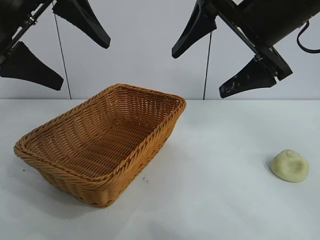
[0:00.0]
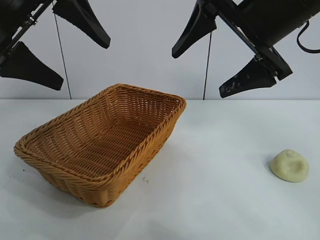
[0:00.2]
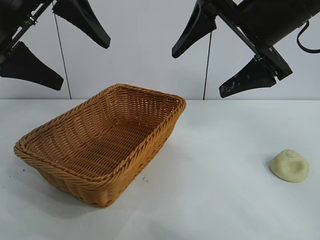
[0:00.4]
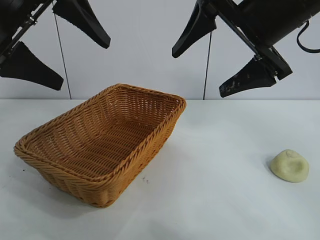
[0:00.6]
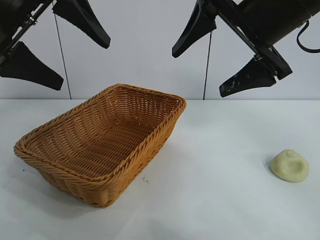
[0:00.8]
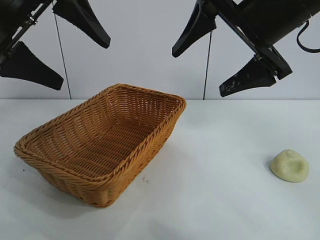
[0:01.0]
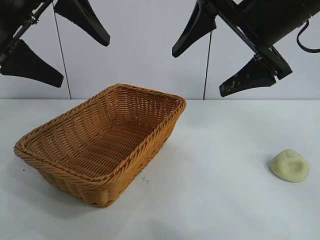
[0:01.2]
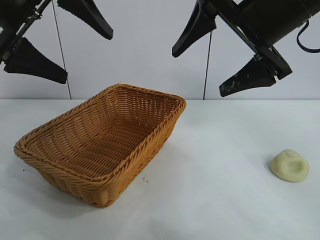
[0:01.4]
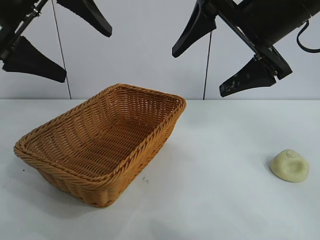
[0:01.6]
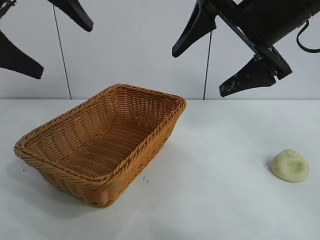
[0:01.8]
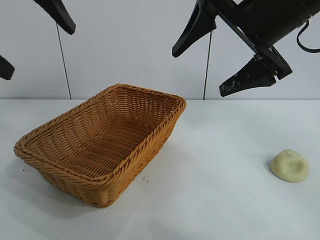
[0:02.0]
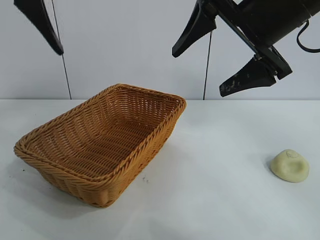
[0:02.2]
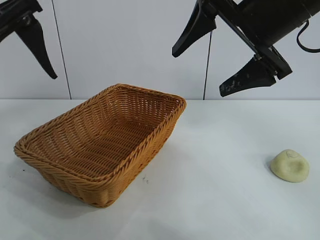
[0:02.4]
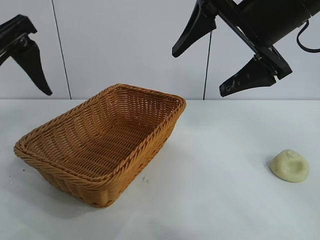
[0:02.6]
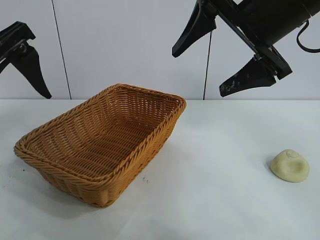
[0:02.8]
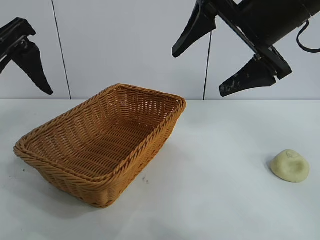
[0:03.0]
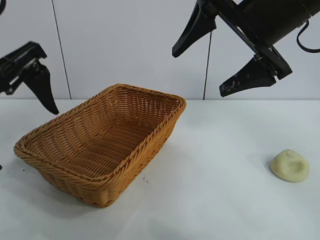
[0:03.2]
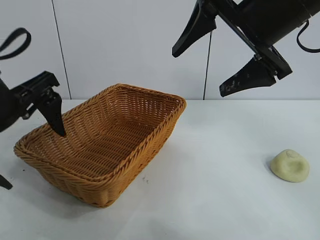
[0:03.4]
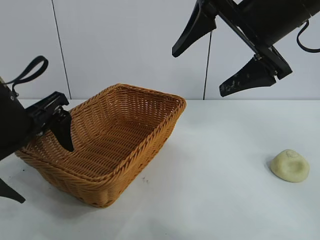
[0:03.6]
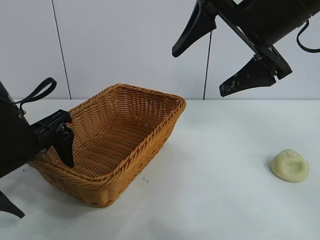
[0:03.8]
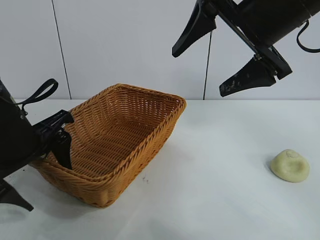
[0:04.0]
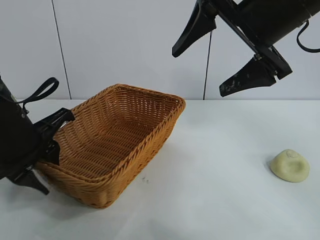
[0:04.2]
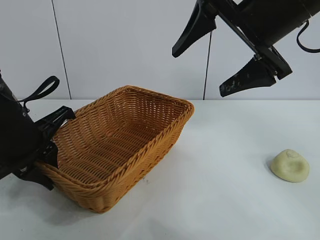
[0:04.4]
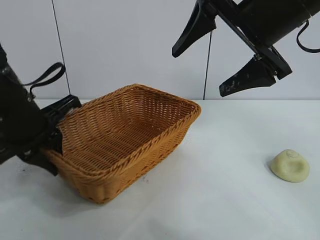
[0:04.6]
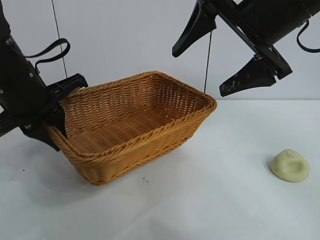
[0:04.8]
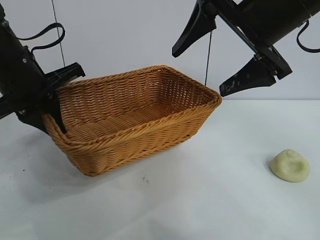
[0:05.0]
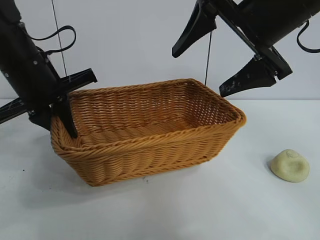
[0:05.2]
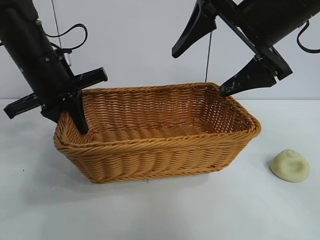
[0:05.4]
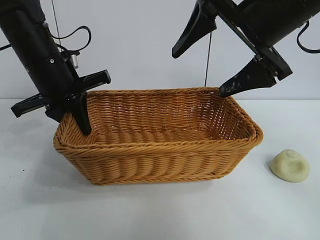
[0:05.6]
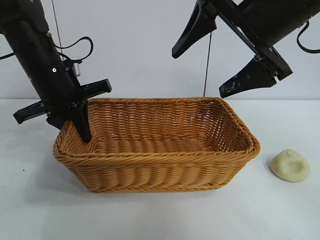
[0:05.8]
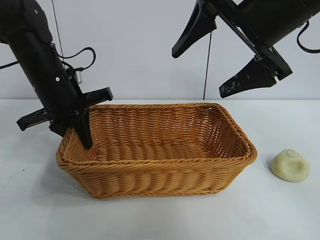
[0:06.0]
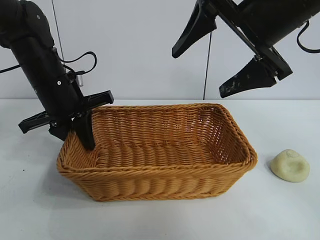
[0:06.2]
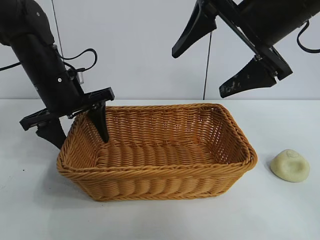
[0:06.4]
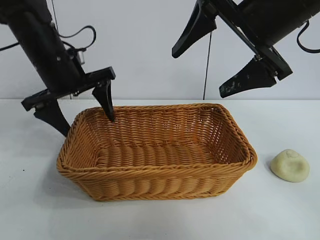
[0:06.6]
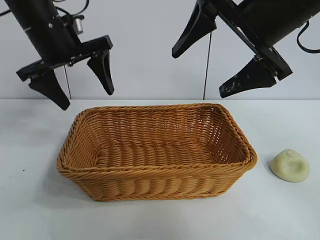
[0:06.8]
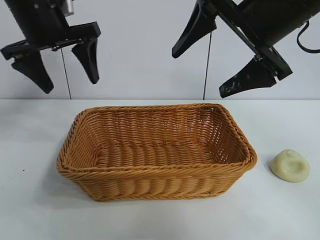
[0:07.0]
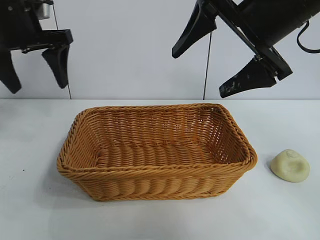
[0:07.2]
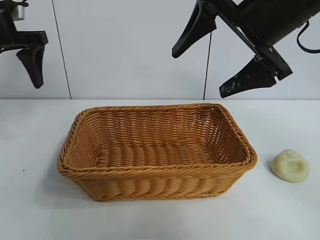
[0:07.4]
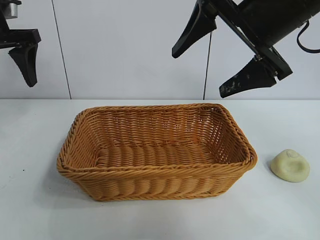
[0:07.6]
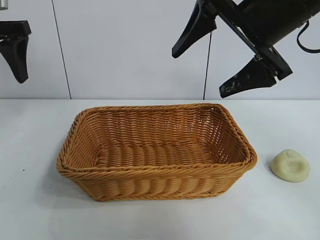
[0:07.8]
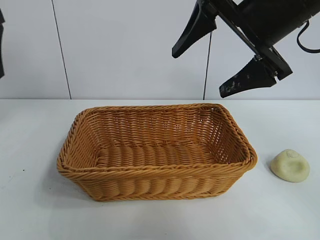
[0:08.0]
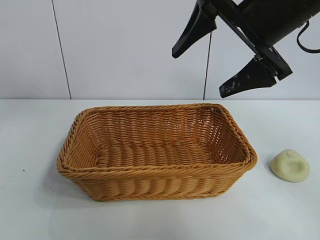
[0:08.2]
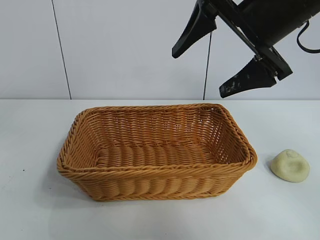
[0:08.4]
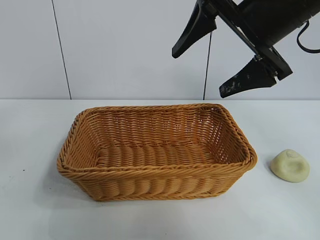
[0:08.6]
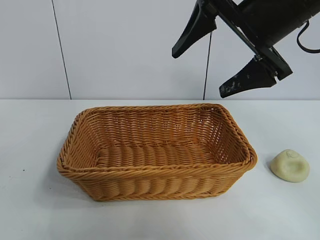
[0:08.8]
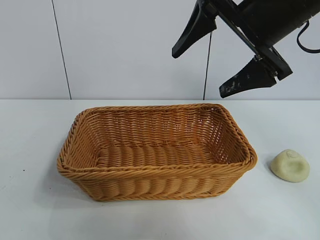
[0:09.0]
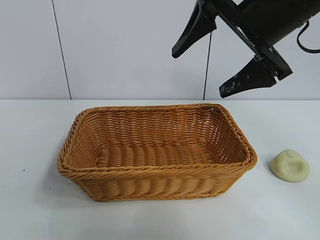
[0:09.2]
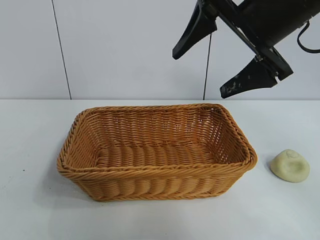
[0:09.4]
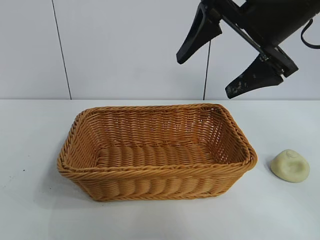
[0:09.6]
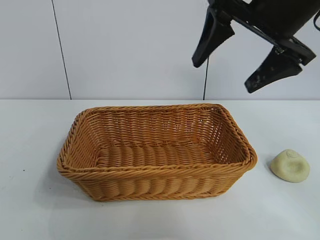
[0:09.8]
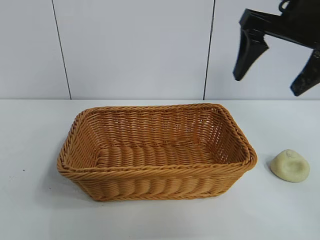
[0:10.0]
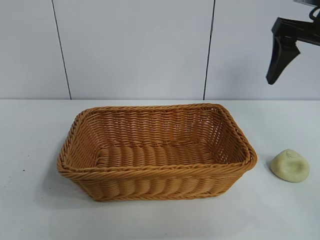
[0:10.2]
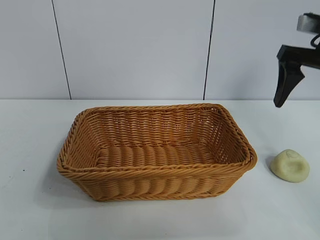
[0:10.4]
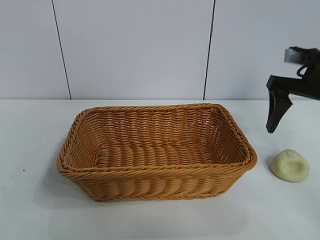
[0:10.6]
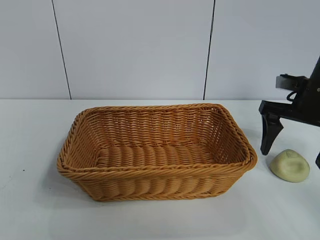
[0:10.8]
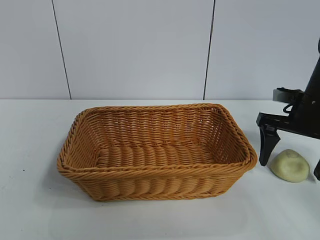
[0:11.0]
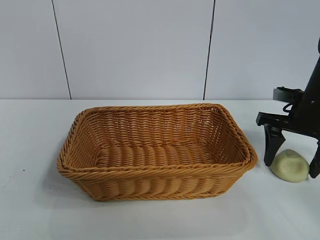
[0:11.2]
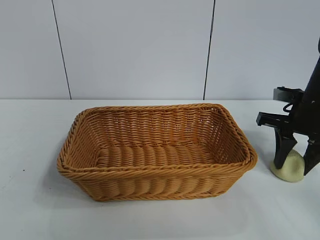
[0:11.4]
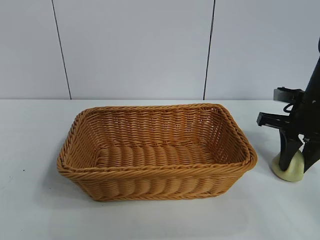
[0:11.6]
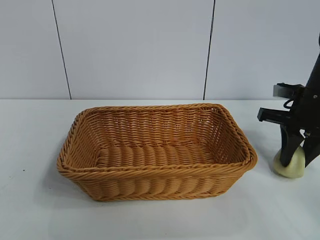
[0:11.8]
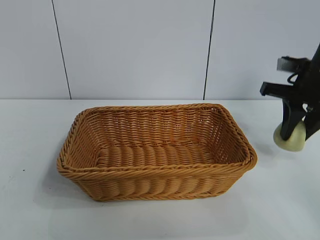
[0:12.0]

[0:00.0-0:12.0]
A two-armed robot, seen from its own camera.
Task of the whole recording: pick up the egg yolk pastry and put it into the basket.
Step, 0:01.0 to 0:04.2: Grasp the basket with left gripper.
Step, 0:04.4 to 0:06.2: Place the basket in the center of view with left gripper.
Step, 0:06.4 to 0:11.4: Grasp egg yolk pastry with right gripper.

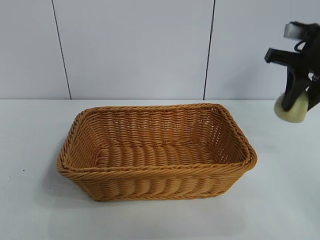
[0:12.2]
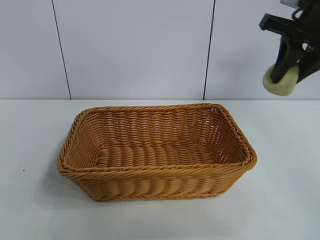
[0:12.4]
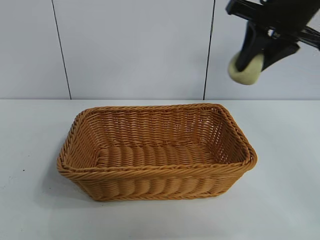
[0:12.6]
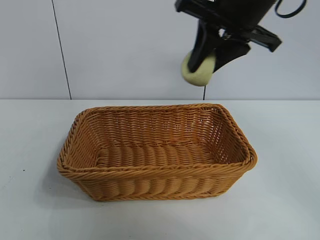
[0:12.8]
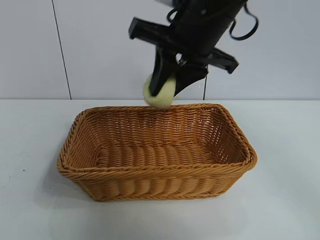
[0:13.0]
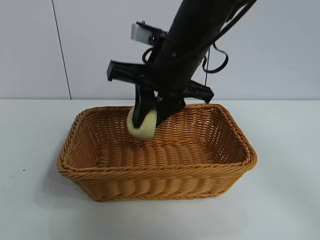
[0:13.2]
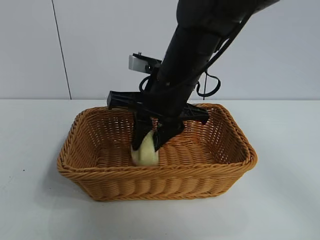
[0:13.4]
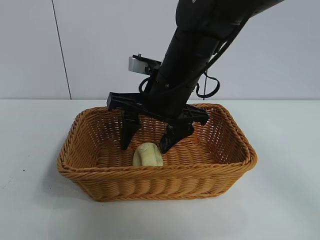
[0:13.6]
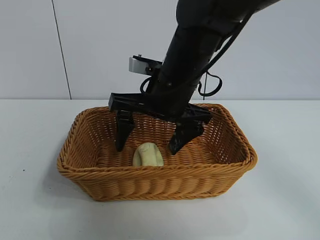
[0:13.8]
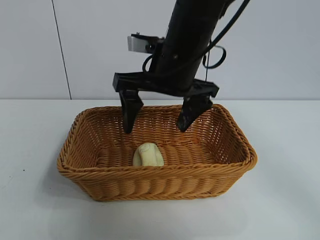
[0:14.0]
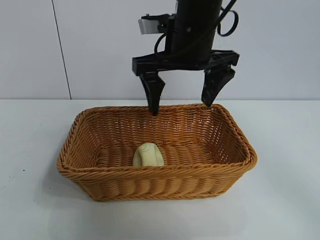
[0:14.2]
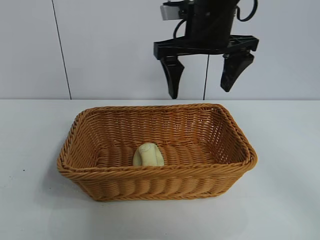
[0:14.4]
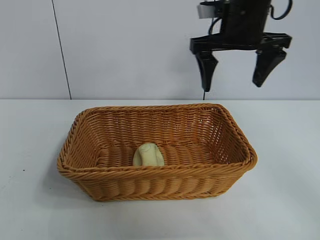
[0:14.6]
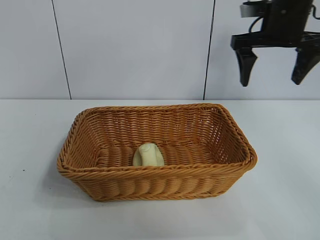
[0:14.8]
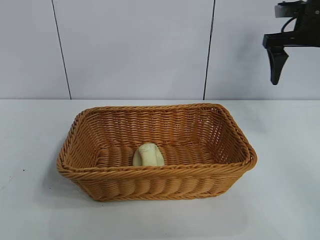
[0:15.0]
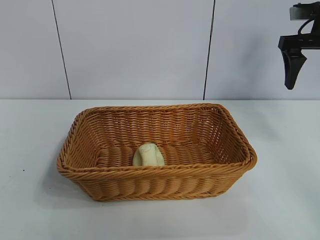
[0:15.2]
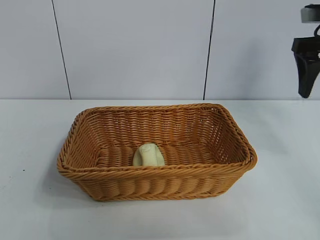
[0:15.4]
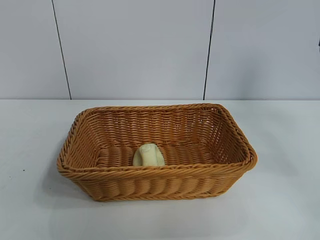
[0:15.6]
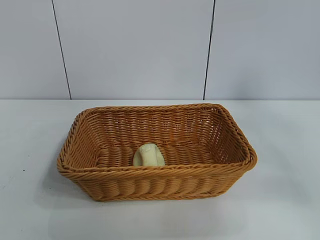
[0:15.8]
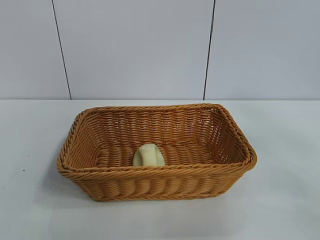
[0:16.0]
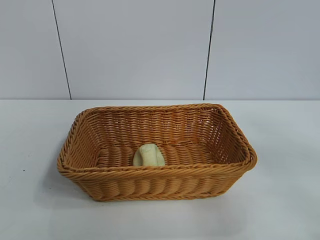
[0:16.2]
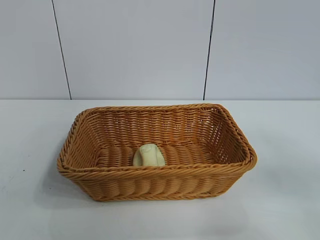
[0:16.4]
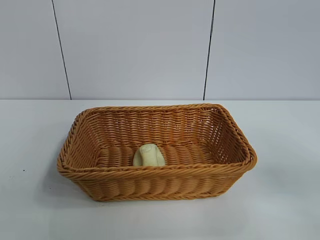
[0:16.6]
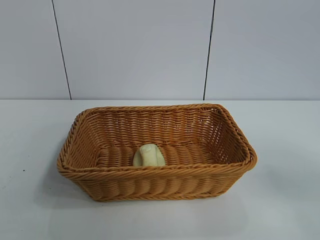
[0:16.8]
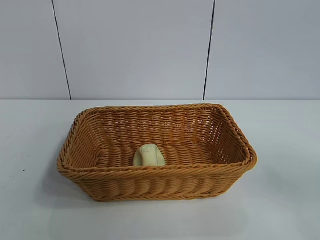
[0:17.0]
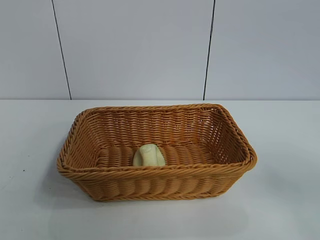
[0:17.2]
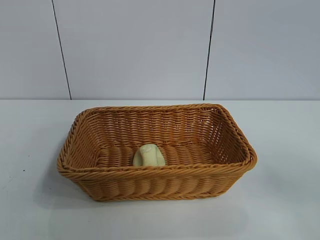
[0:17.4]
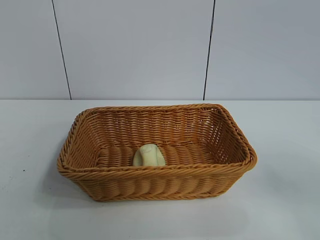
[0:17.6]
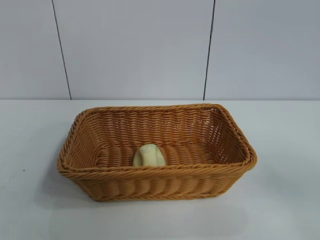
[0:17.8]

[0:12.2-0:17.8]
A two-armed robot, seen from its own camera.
Task of the whole recording: pick up the egg yolk pastry and put it into the basket.
Step, 0:12.2 to 0:13.4: Place the egg yolk pastry in the basket with right gripper.

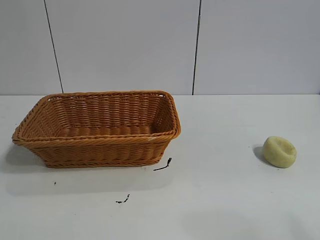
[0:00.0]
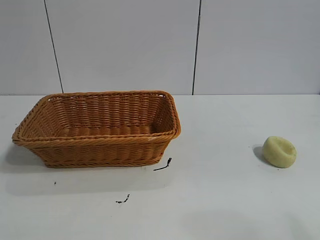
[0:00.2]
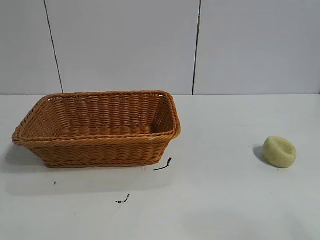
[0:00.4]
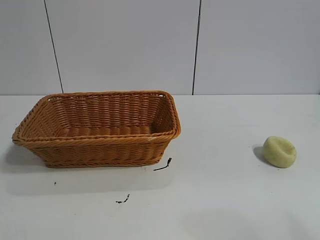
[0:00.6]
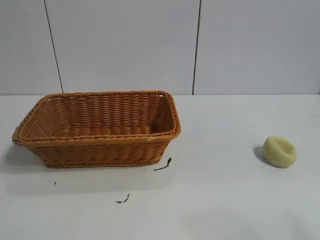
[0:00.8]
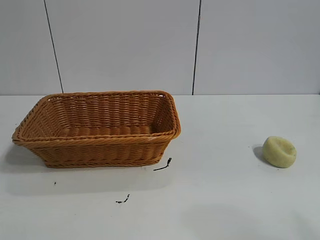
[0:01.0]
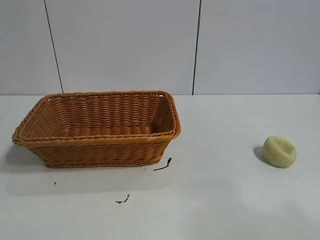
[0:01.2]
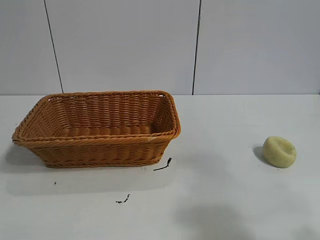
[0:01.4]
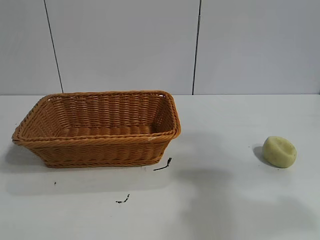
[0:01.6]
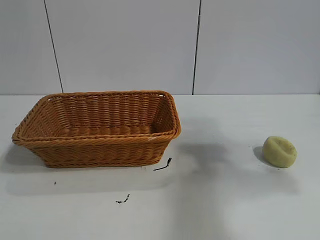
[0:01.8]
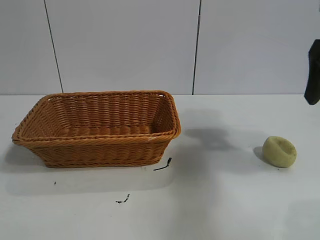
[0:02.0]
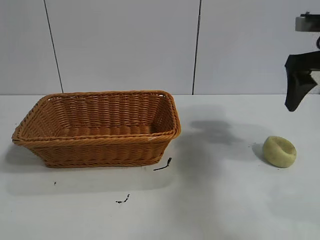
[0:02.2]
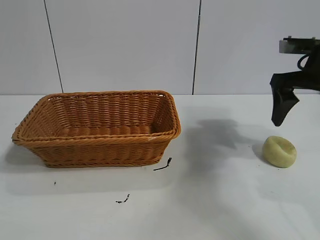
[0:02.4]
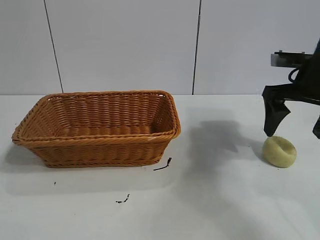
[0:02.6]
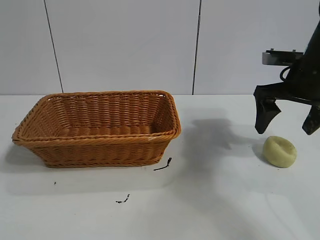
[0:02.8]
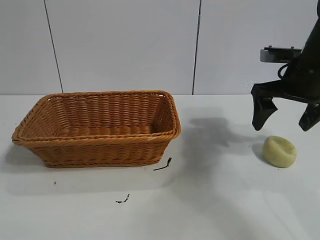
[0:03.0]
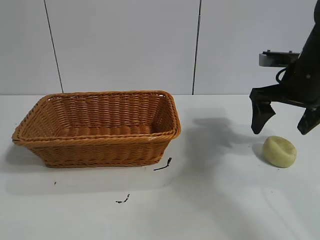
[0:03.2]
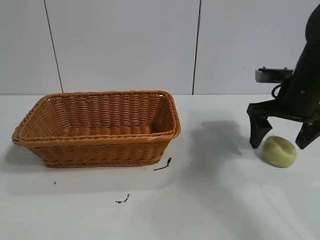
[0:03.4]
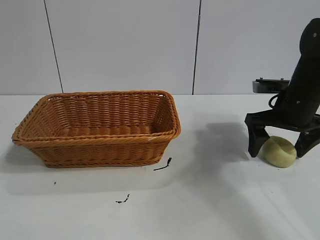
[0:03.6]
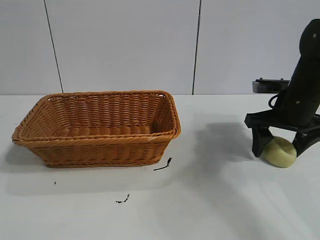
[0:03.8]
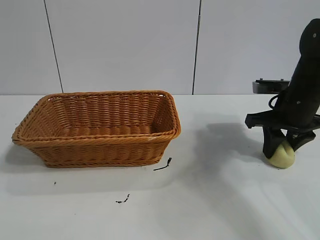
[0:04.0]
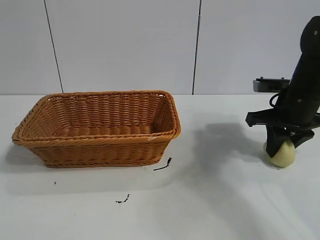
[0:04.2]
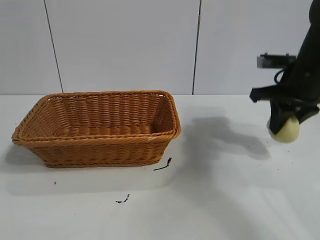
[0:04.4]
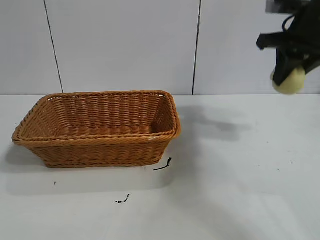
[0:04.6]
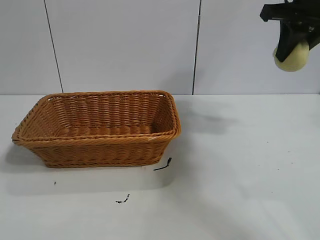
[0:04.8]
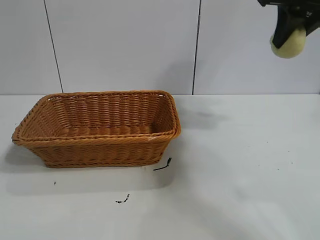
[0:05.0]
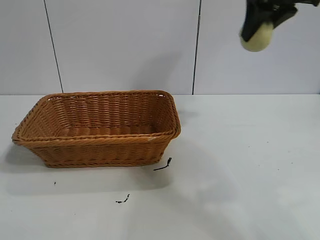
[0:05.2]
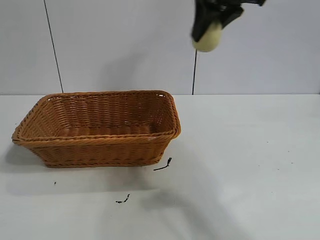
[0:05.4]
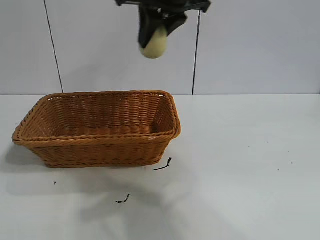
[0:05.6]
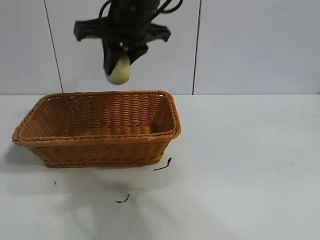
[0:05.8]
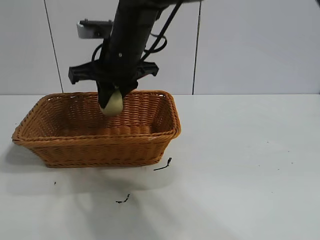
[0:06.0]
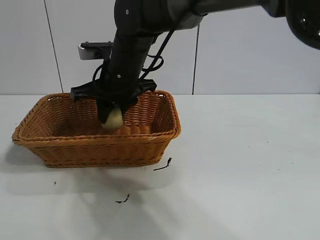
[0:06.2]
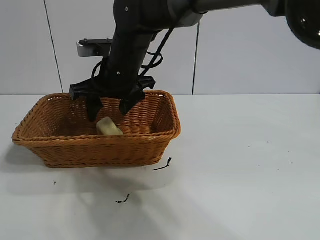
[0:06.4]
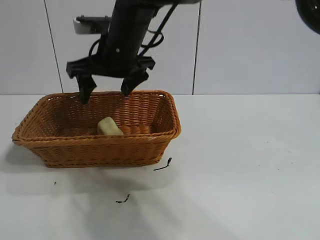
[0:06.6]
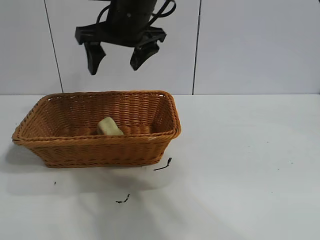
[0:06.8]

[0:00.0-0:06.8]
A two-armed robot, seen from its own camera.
Task of the whole recording: pick up the egg yolk pastry and put it into the basket.
Step, 0:00.8 to 0:04.0: Grasp egg yolk pastry with right gripper.
Step, 0:04.2 to 0:06.4: Place the egg yolk pastry in the basket with right gripper.
